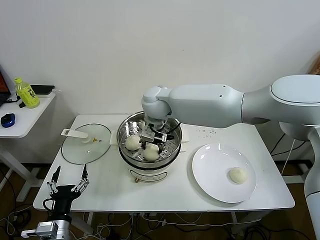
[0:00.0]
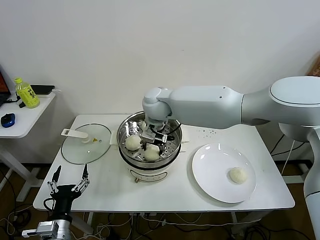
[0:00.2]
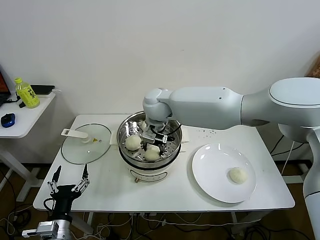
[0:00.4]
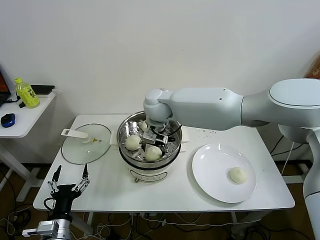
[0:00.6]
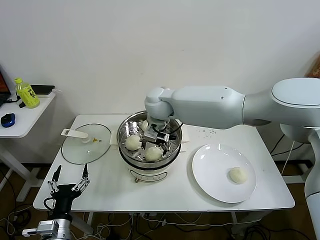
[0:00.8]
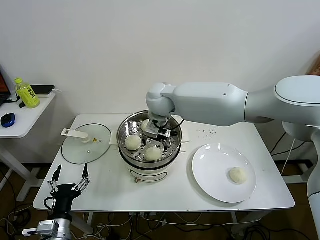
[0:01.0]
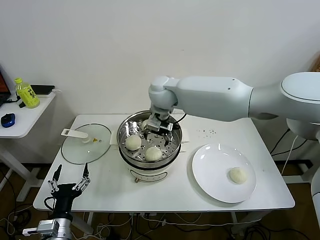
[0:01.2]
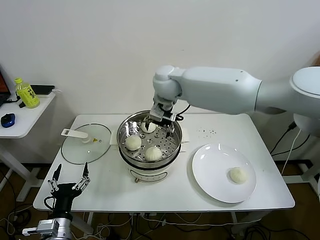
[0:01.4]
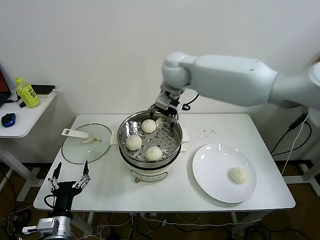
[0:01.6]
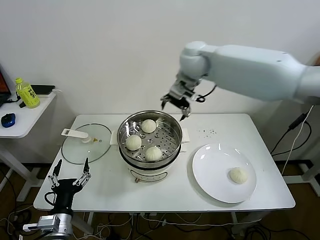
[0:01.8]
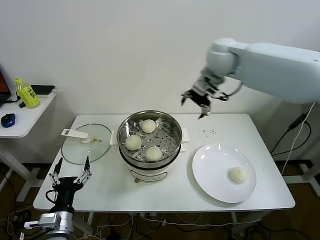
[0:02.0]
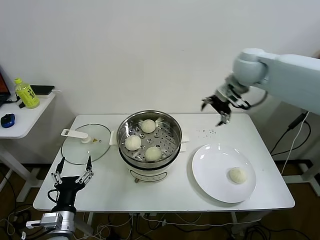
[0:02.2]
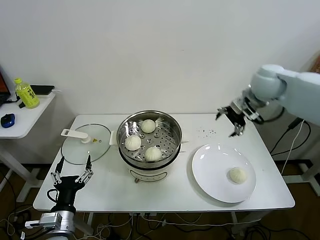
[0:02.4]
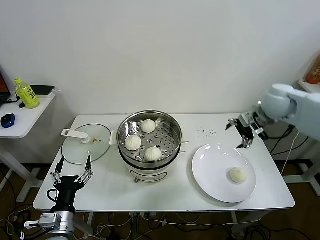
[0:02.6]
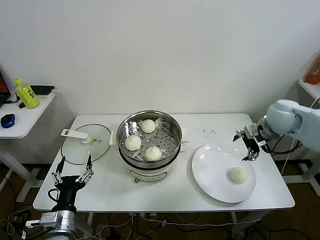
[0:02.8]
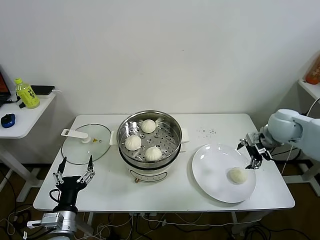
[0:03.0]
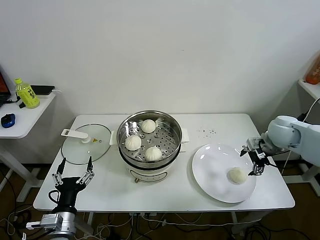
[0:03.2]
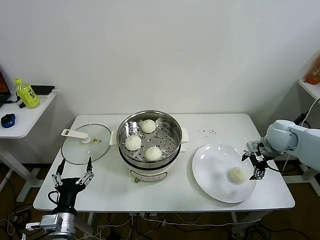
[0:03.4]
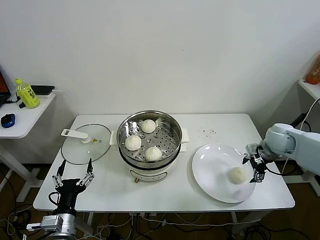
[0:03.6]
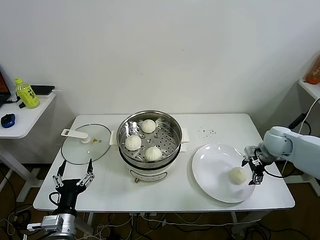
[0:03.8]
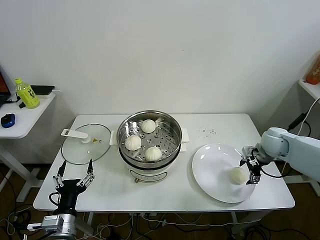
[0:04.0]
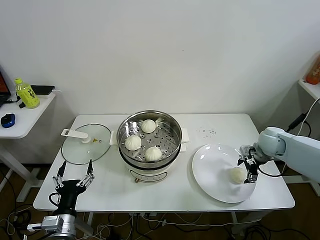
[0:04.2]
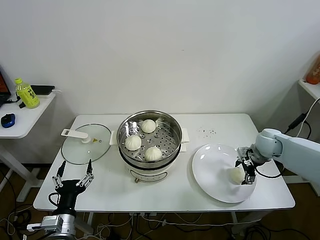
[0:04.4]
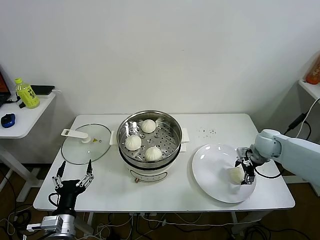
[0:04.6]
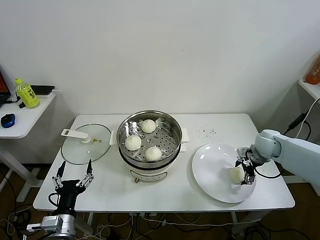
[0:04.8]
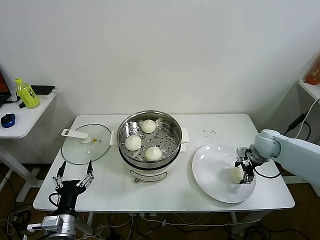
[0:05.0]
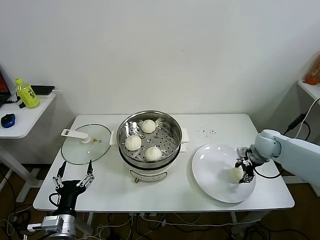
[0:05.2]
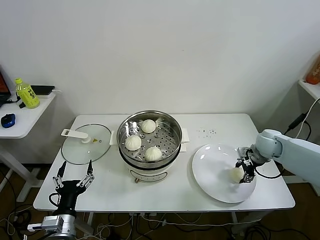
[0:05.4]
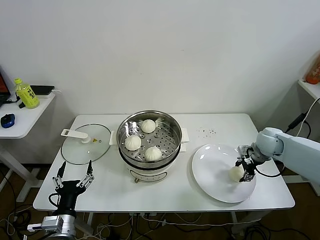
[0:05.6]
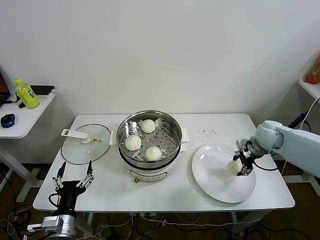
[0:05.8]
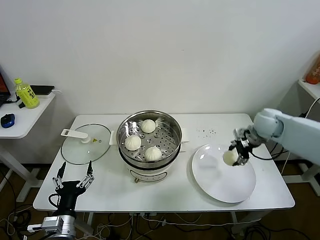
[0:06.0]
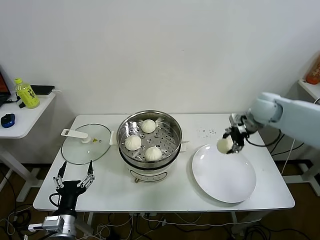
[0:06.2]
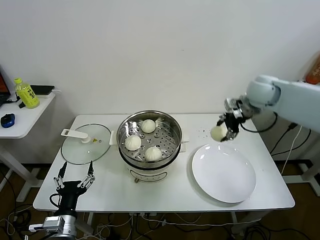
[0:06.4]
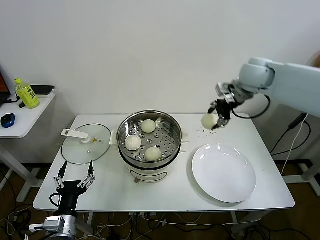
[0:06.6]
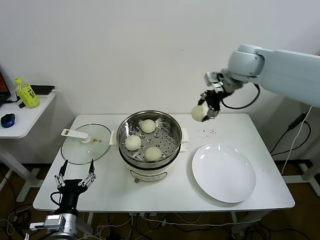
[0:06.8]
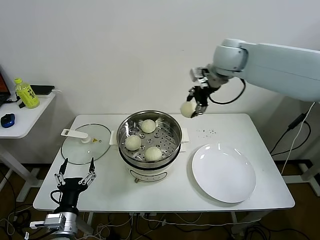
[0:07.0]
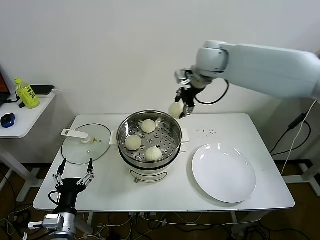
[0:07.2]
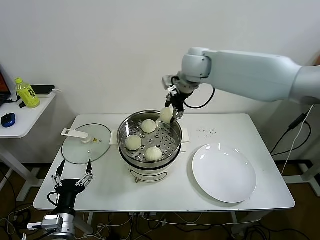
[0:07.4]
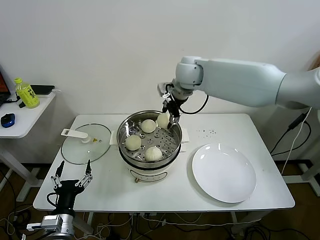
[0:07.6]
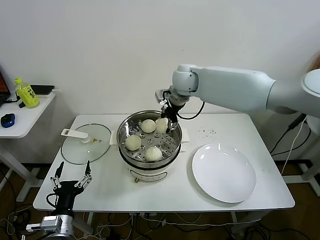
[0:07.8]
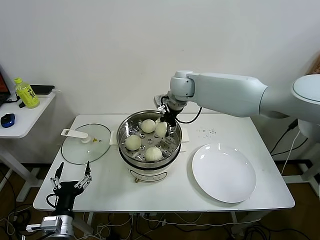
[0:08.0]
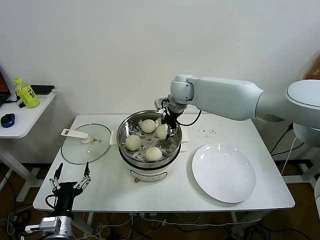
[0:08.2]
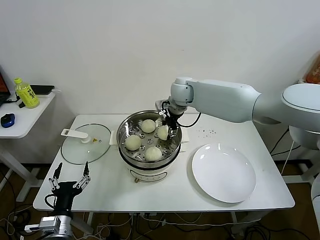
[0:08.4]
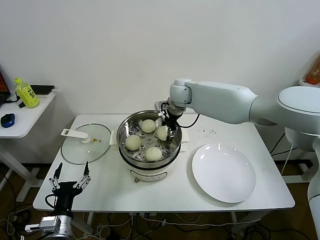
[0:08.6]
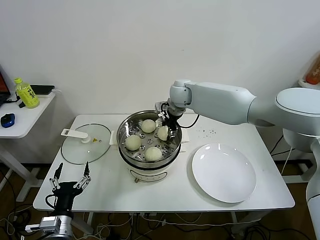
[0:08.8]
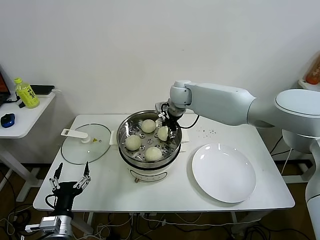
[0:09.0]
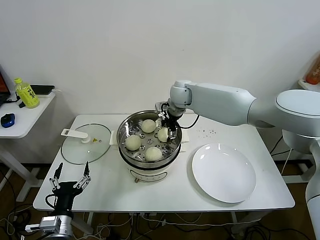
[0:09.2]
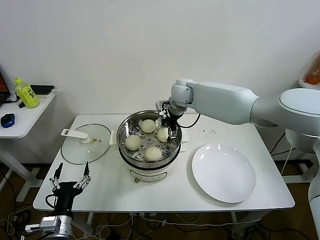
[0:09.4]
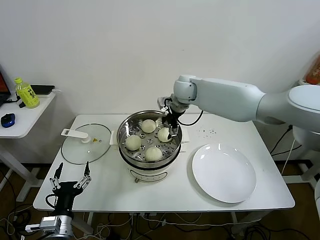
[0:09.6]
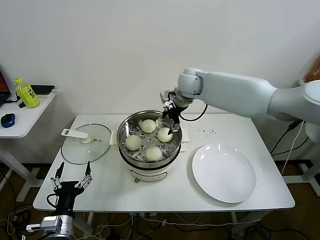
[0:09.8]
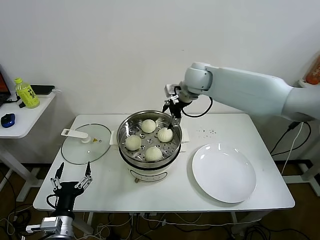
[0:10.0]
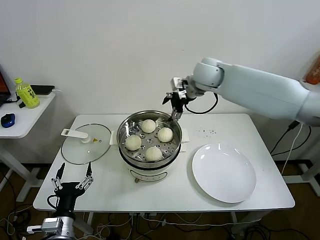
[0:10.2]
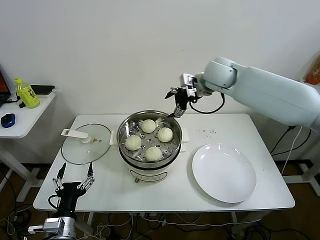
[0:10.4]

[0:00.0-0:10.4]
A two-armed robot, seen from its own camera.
Task of the whole recording: take steamed baozi put them in steamer.
Step, 0:01.2 to 0:05.2: Grasp the baozi in the plate with right gripper.
Step, 0:05.6 to 0:09.4: Place the baozi on the steamer with right gripper.
0:00.0 to 0:01.4: The right gripper travels upward by approximately 5 cm, and opens.
0:01.4 to 0:03.0: The right gripper shifts roughly 35 cm to the right.
0:03.0 to 0:04.4: The right gripper shifts approximately 10 cm downward.
0:04.4 to 0:06.0: The right gripper travels upward by roughly 5 cm, and closes its fingers.
0:06.0 to 0:07.4: The right gripper goes some 30 cm to the left and upward.
0:07.4 to 0:09.0: The right gripper goes roughly 15 cm downward.
0:09.0 to 0:10.4: The right gripper shifts roughly 15 cm upward and to the right, and opens.

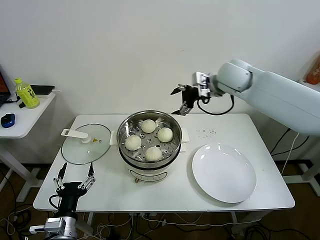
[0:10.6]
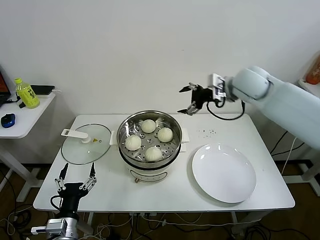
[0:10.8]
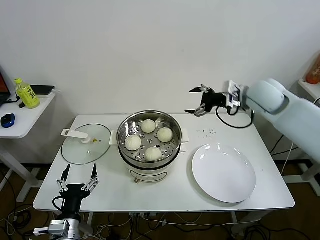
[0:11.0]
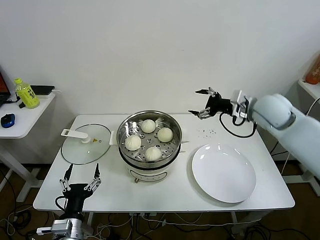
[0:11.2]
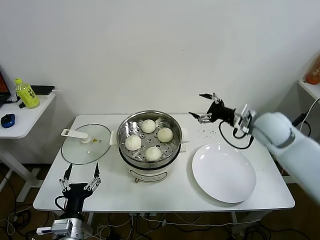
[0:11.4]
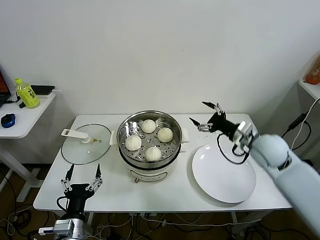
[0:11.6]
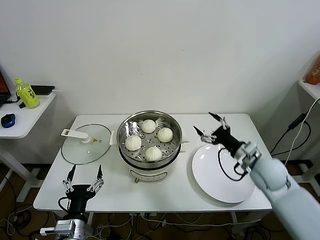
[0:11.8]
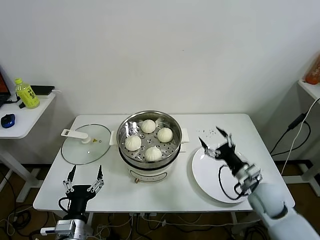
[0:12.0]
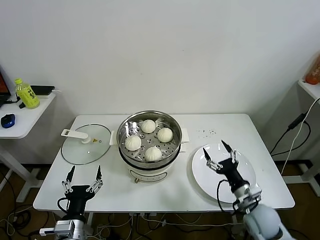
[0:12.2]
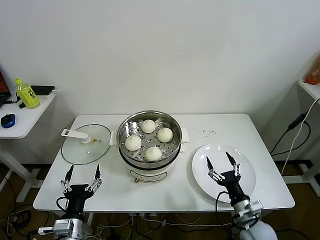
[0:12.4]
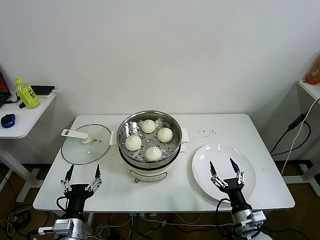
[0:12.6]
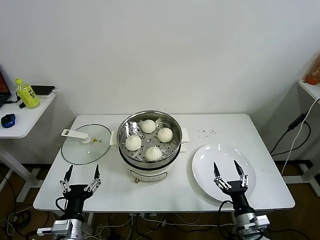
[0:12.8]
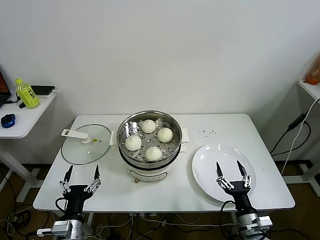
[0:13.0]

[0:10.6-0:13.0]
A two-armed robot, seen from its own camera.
Task of the whole recording: take steamed baozi put them in steamer.
0:10.6 to 0:11.8: The right gripper travels downward, backward and to the right by about 30 cm.
0:11.8 to 0:13.0: The right gripper goes some 25 cm backward and downward.

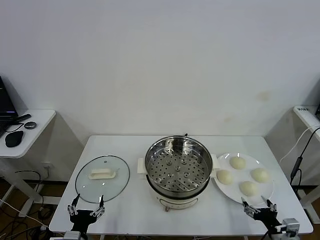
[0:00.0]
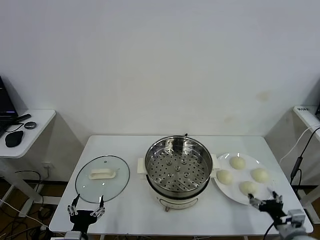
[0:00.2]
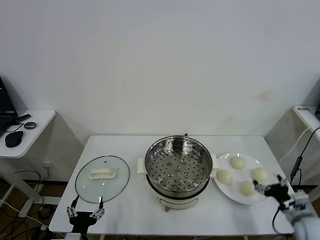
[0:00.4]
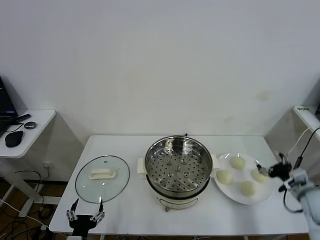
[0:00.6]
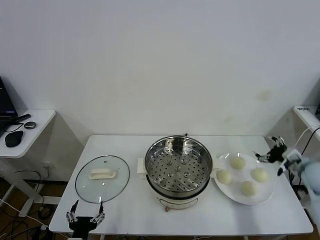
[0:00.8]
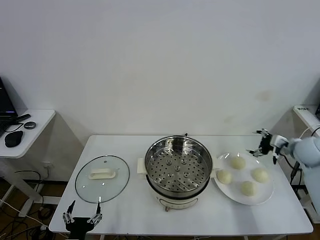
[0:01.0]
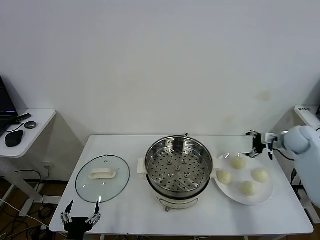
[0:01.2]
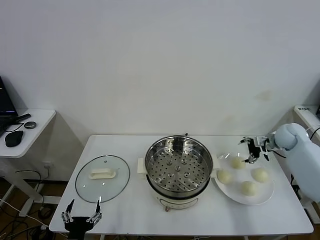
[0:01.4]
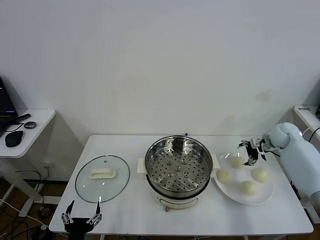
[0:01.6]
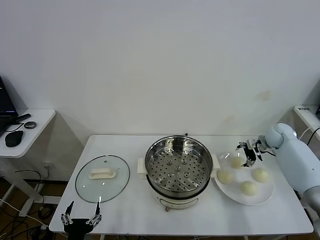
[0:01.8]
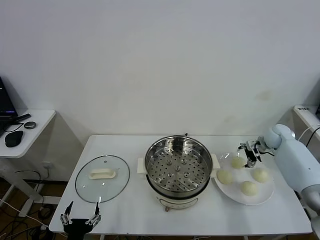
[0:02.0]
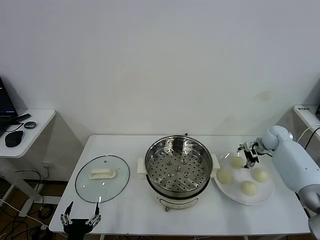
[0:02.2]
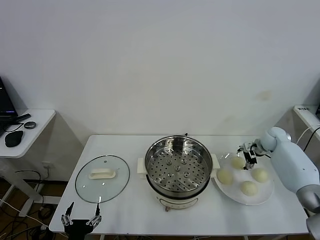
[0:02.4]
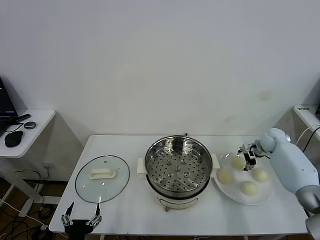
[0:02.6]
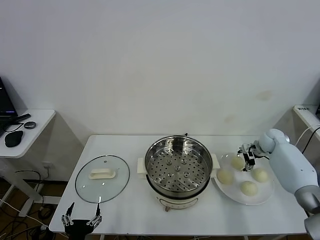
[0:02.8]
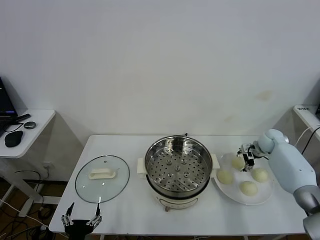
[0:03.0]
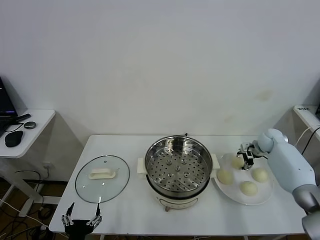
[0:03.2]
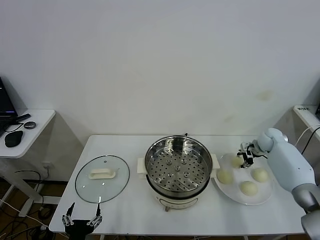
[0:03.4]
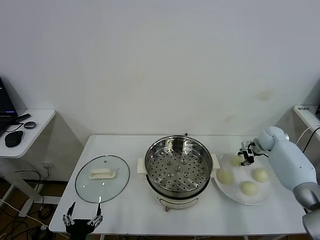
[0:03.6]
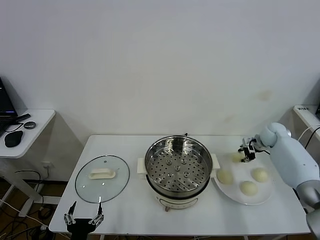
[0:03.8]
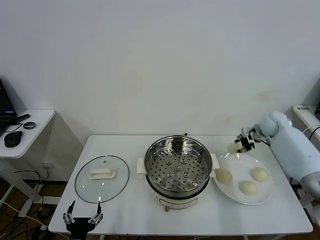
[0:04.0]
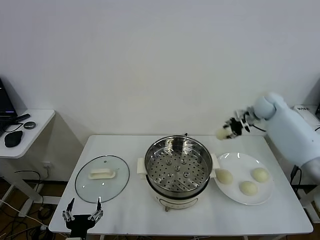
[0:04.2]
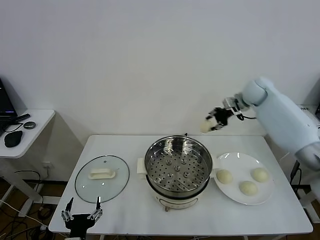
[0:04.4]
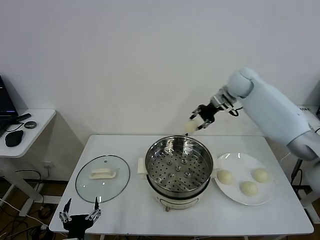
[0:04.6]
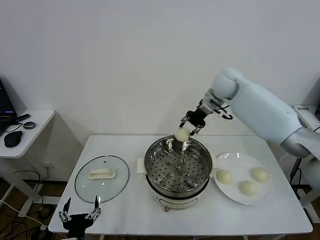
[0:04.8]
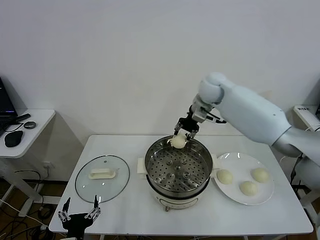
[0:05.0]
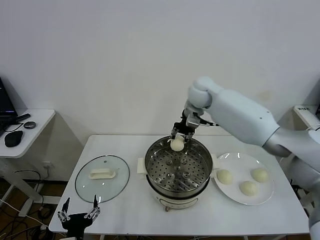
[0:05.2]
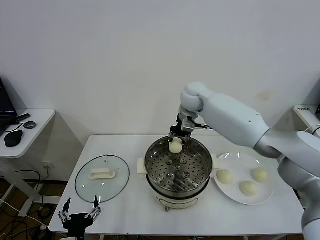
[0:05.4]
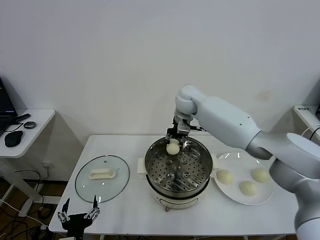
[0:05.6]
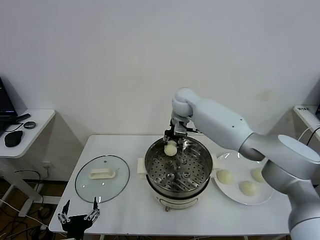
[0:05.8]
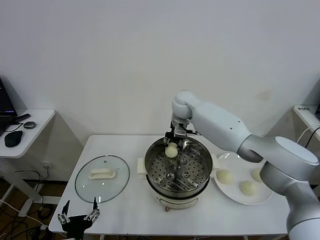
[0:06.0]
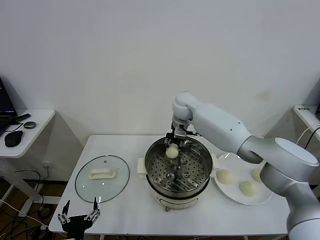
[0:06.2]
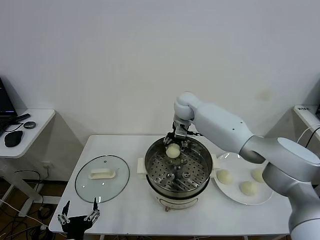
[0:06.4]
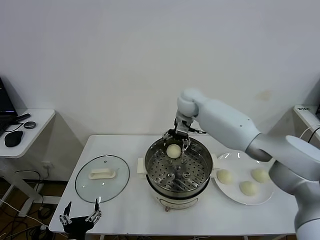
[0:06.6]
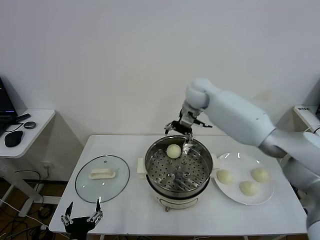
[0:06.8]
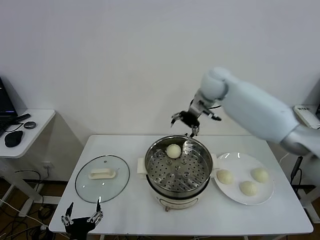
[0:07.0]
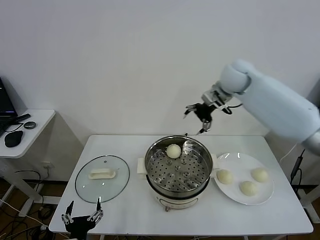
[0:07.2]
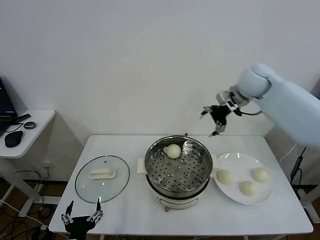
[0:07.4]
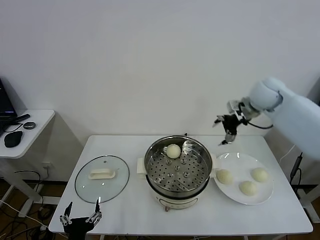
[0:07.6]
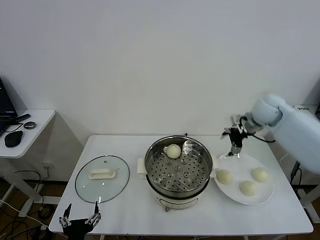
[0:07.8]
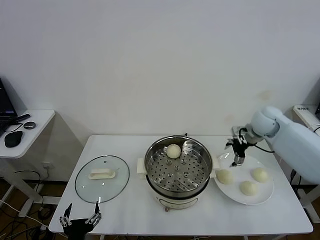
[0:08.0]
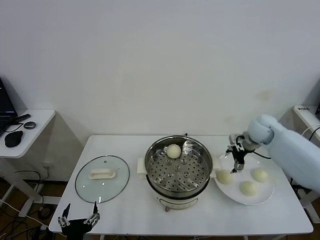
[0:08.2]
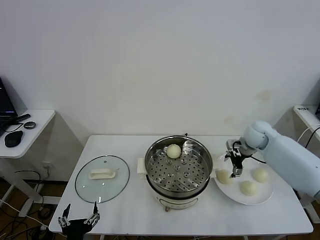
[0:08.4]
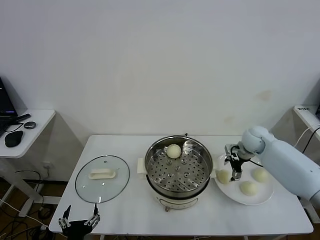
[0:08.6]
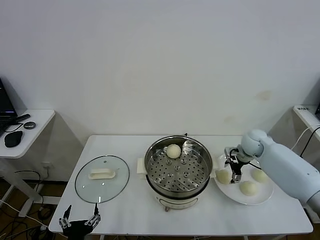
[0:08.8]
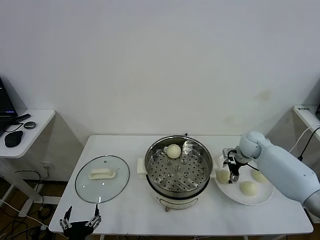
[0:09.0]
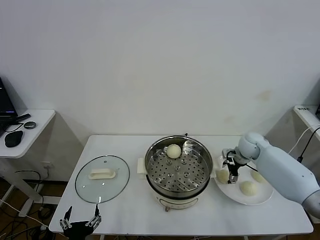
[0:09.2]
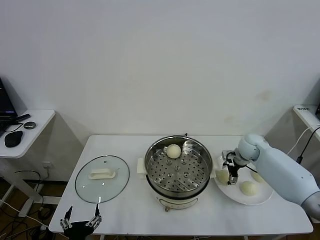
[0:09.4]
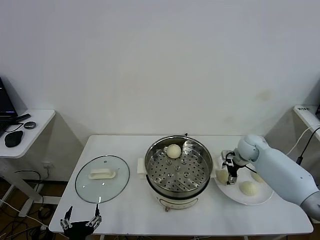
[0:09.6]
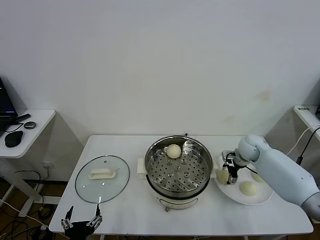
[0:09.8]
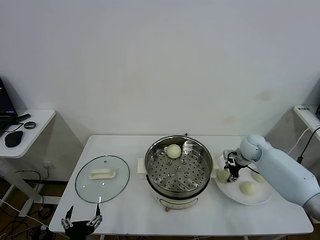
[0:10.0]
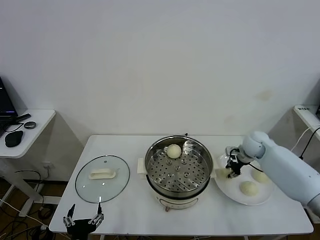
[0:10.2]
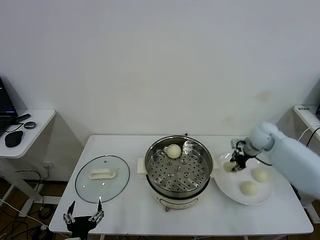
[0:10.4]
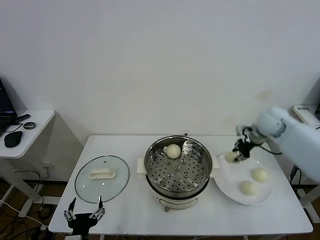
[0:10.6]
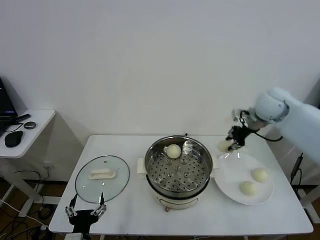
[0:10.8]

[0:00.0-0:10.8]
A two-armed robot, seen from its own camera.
Task of the whole recording: take steamed baozi put them in steamer.
Step, 0:00.0 to 0:03.2: Grasp the baozi in the plate with right gripper.
Step, 0:03.4 to 0:06.6: Place the baozi on the steamer with right gripper.
Step, 0:06.8 to 0:10.0: Grasp the baozi in the plate with right gripper.
0:01.6 to 0:03.0: The grippers stay close to where they were, moving slightly.
0:03.0 to 0:04.6: The right gripper heads upward and to the left, covering approximately 30 cm, and closes its fingers.
0:04.6 to 0:06.2: The right gripper heads to the left and downward, covering approximately 20 cm.
0:06.2 to 0:07.8: The right gripper heads to the right, covering roughly 25 cm, and opens up.
0:07.8 to 0:09.2: The right gripper heads downward, covering some 15 cm.
0:09.2 to 0:10.8: The right gripper heads upward, covering approximately 20 cm, and closes its fingers.
